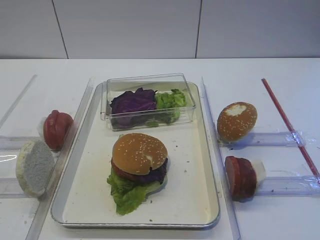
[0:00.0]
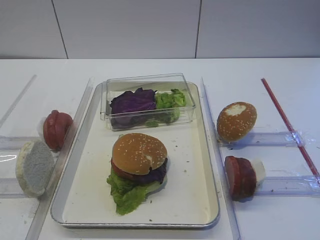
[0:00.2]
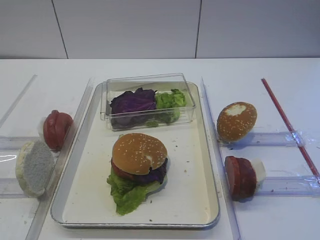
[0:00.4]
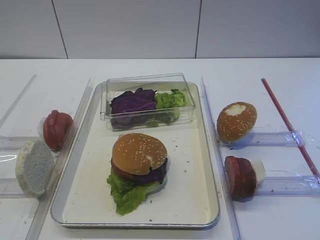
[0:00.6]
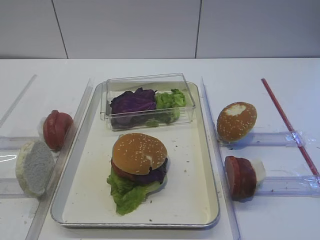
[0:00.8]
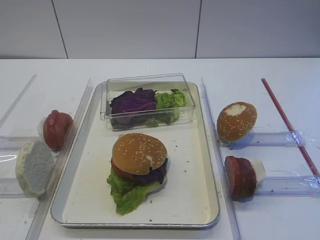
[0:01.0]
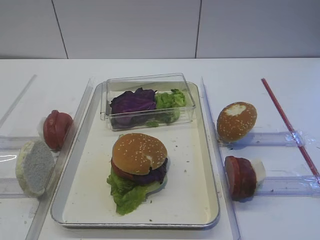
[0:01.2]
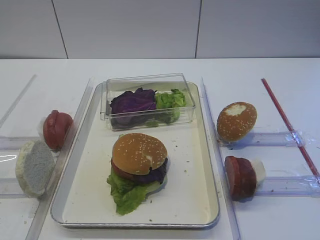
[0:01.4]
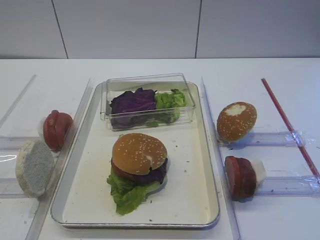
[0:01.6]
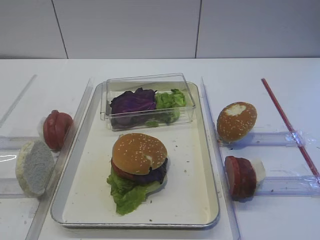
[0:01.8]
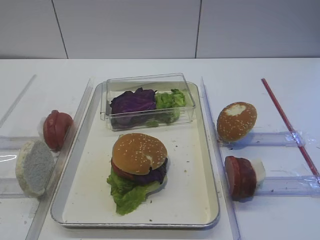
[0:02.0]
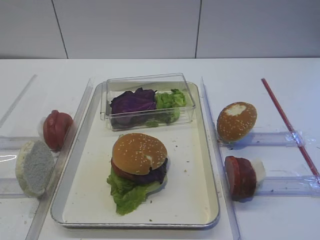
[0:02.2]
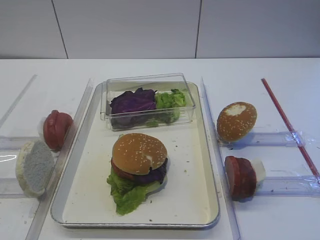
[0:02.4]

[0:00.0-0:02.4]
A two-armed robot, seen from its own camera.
0:00.0 to 0:02.4: Both grippers stay put.

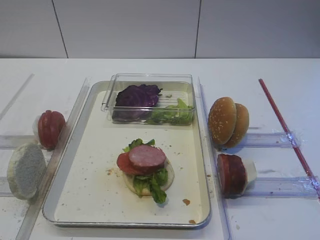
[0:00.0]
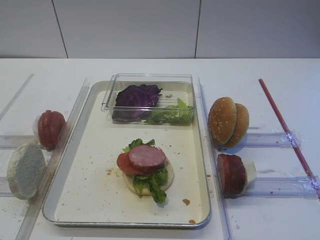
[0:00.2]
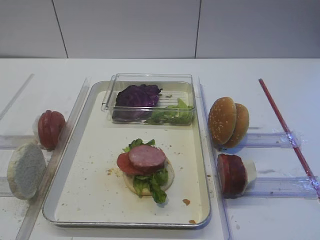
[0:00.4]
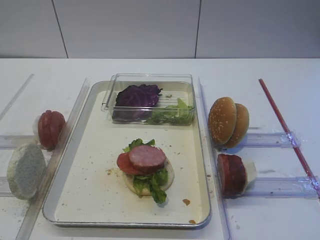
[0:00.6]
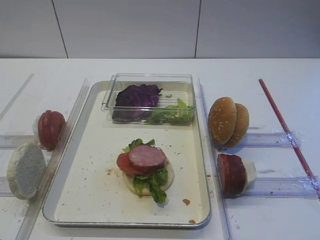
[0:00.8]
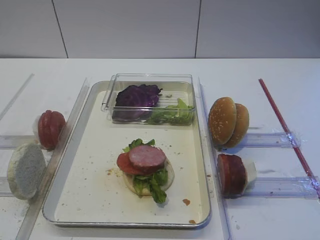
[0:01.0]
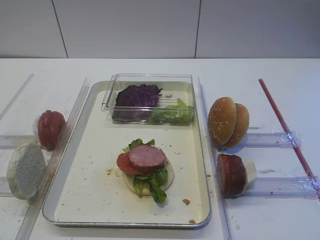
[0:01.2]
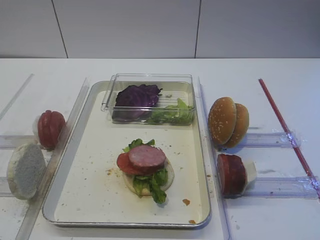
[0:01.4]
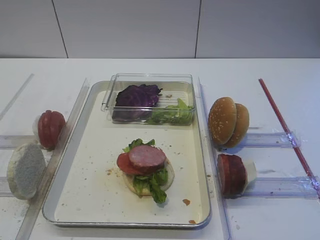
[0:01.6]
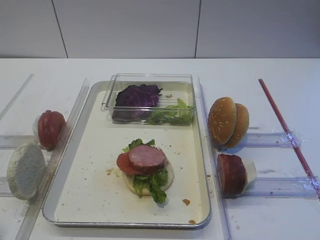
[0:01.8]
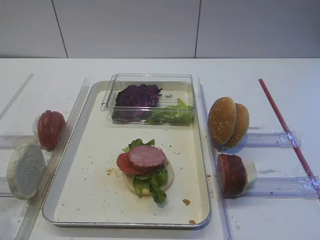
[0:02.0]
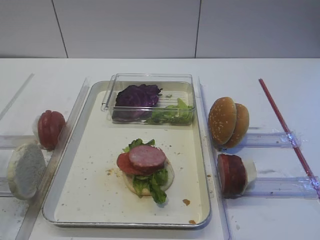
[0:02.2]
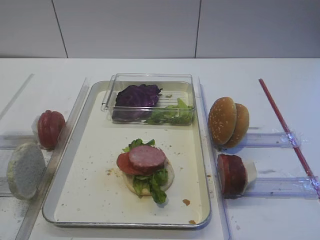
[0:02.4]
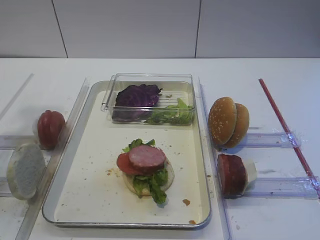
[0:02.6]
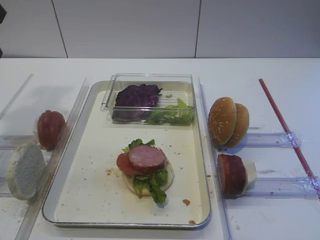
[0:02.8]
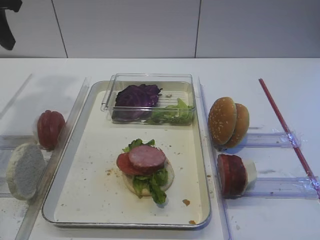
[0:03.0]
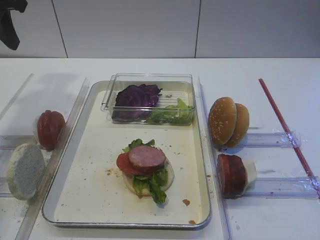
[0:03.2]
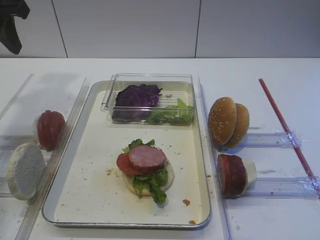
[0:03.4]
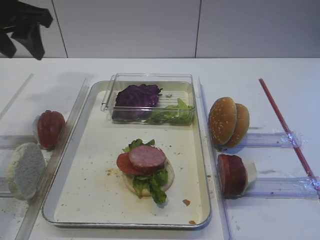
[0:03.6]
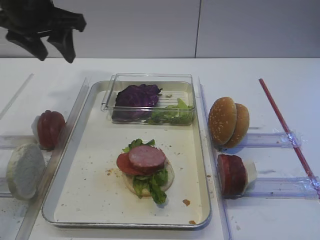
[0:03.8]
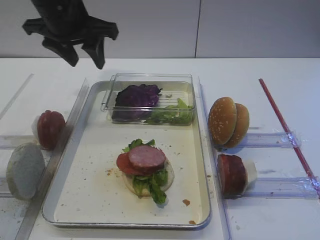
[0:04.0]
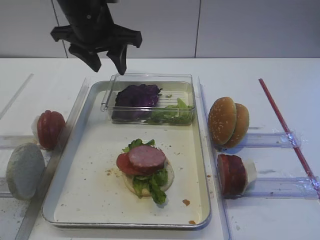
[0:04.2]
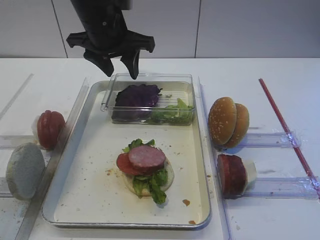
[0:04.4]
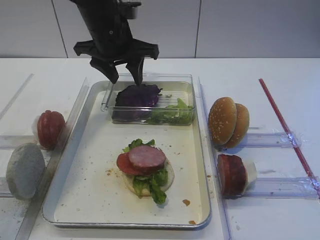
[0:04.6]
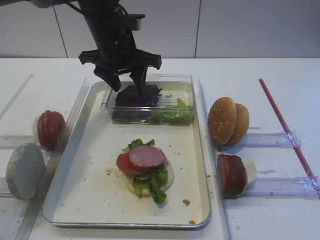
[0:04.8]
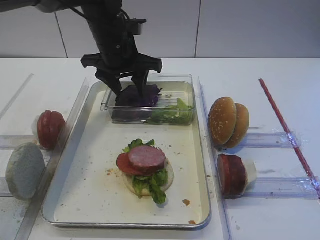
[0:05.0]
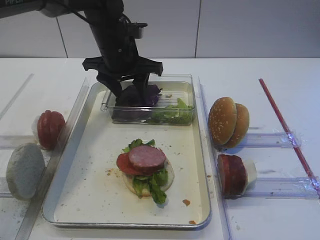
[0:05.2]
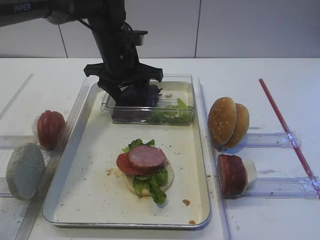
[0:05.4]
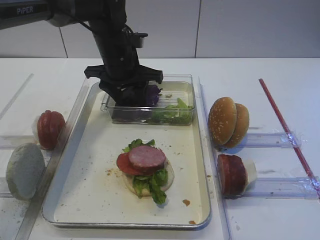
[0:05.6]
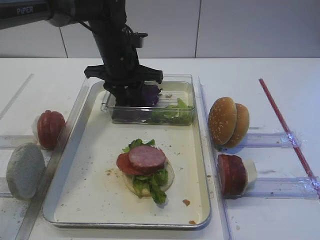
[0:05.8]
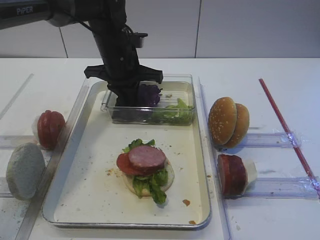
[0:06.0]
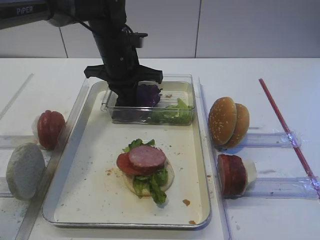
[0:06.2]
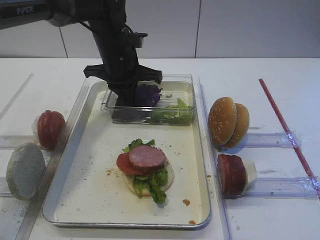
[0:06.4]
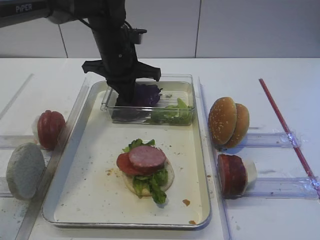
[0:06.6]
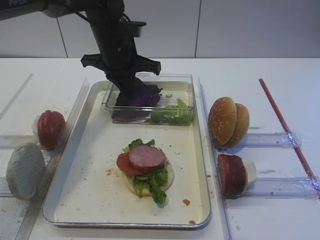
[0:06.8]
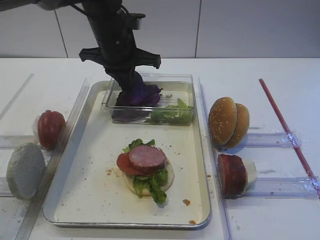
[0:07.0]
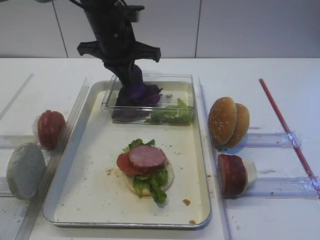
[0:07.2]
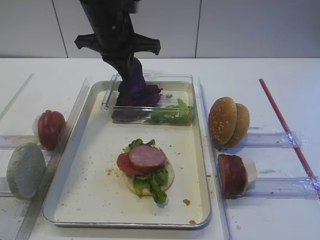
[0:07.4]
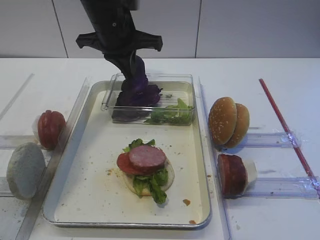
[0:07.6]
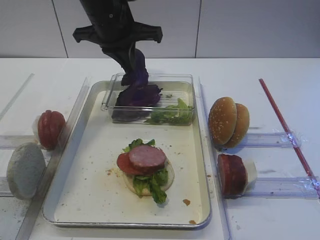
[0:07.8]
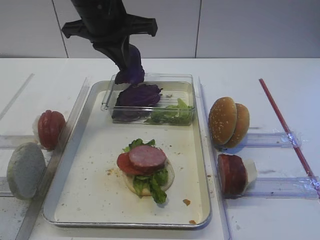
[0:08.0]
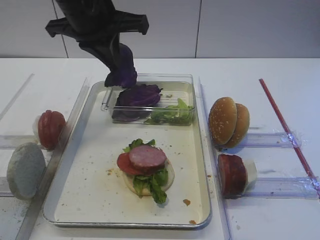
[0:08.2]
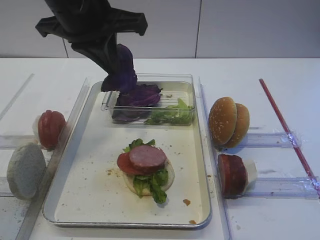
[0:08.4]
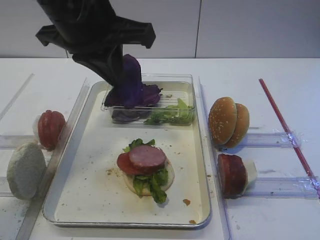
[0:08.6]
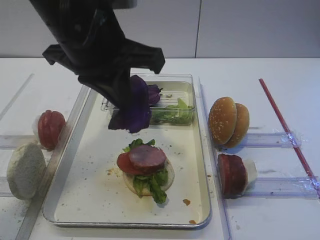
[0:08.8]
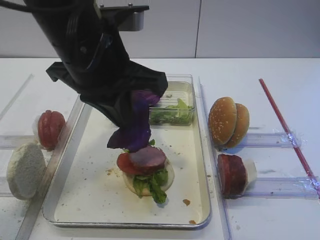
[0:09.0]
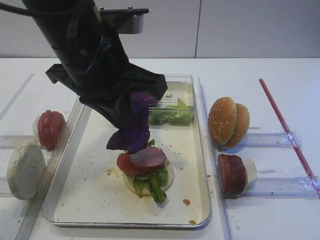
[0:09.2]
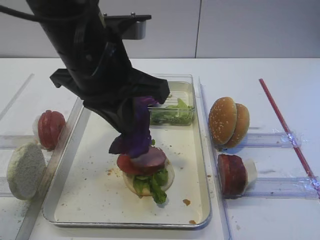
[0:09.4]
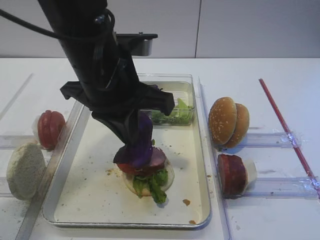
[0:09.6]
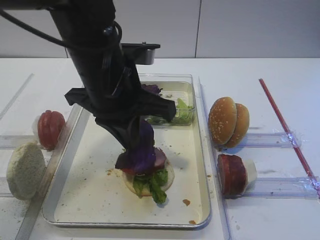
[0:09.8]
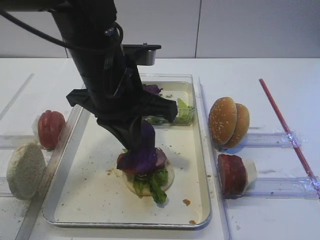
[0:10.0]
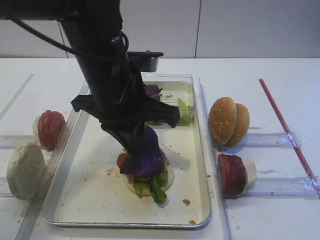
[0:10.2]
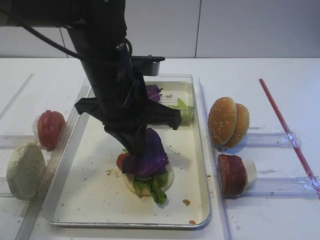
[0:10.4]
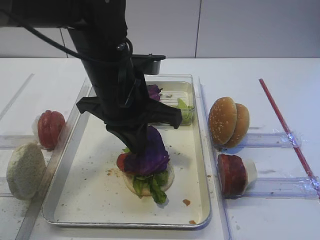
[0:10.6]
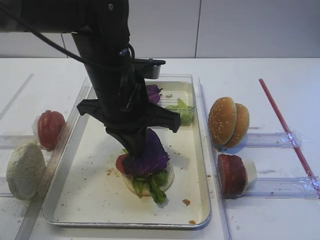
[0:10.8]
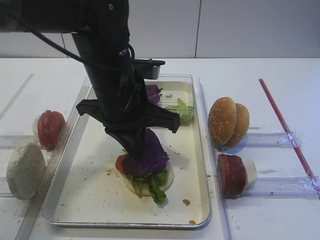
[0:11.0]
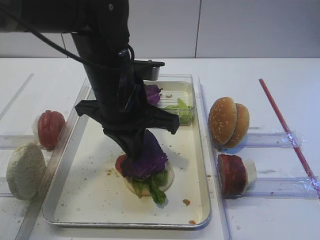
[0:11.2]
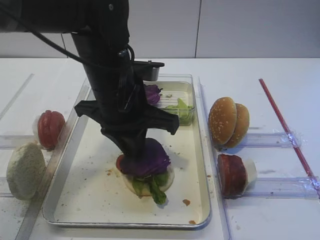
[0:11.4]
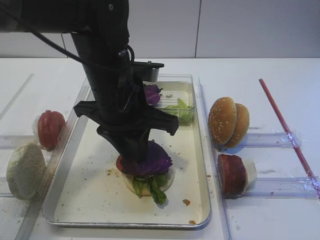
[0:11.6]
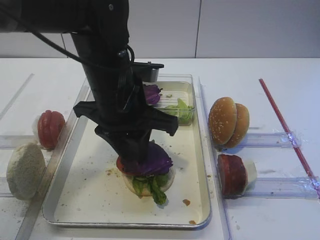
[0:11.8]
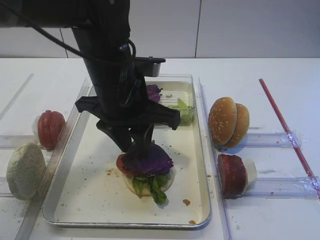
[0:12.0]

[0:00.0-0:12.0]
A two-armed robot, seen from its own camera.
Step, 0:00.0 to 0:08.2: Pick up the purple cabbage with the left gripper.
0:01.6 to 0:03.0: The left gripper goes roughly 30 cm forward.
0:03.0 to 0:04.4: The left gripper heads to the right and forward, covering approximately 20 cm.
0:04.4 to 0:06.0: The left gripper is displaced downward by some 5 cm, and closes its fingers.
0:06.0 to 0:07.6: The left gripper shifts approximately 5 cm upward.
0:07.6 to 0:09.0: The left gripper is displaced backward by some 15 cm.
0:09.0 to 0:10.4: The left gripper shifts approximately 5 cm downward.
0:10.4 to 0:12.0: The left gripper opens.

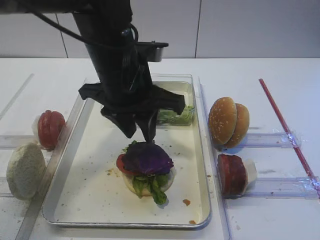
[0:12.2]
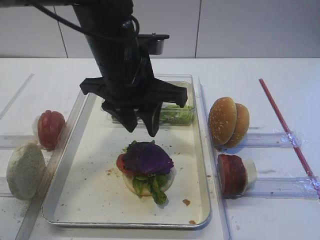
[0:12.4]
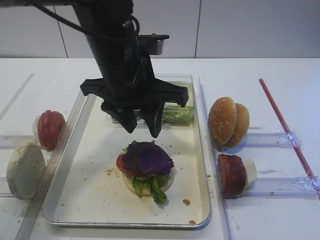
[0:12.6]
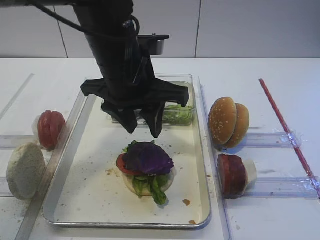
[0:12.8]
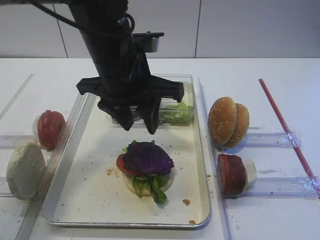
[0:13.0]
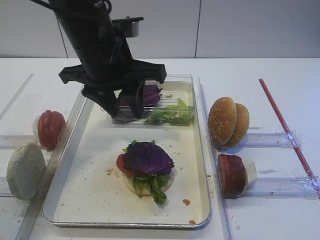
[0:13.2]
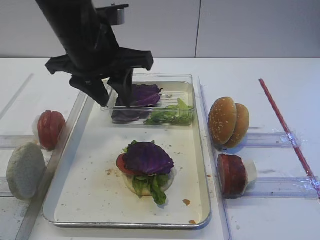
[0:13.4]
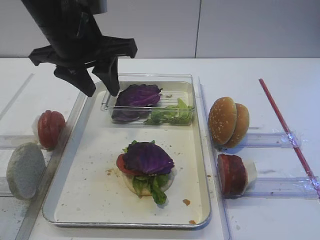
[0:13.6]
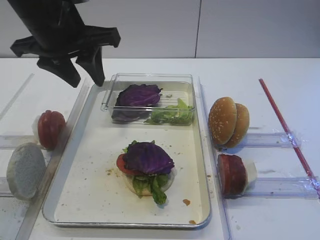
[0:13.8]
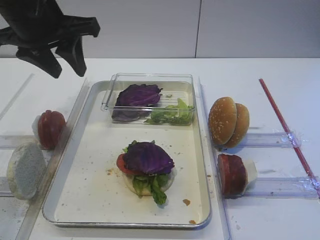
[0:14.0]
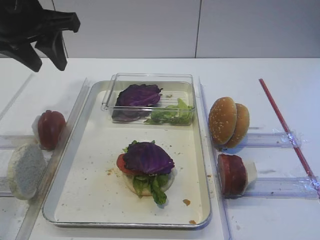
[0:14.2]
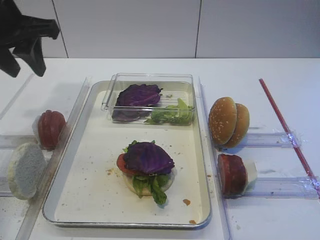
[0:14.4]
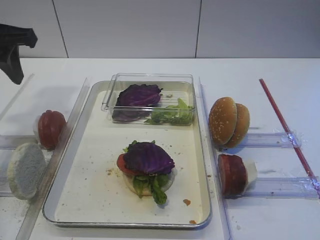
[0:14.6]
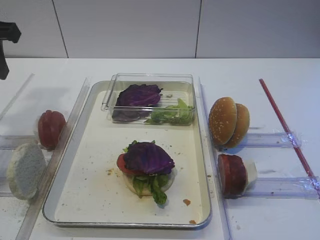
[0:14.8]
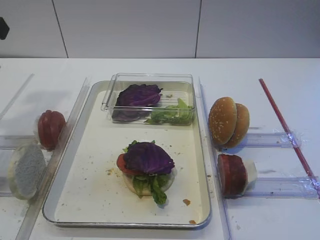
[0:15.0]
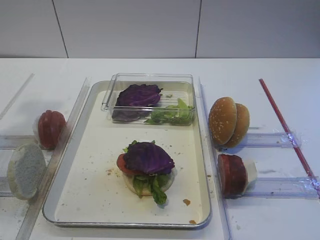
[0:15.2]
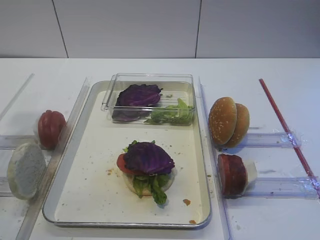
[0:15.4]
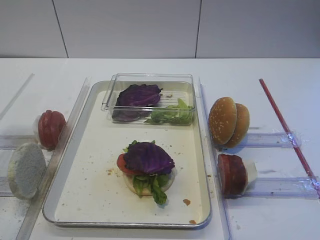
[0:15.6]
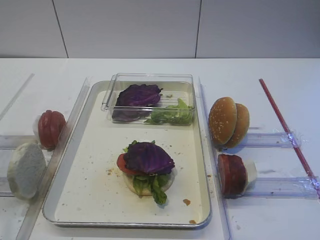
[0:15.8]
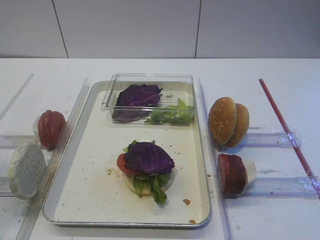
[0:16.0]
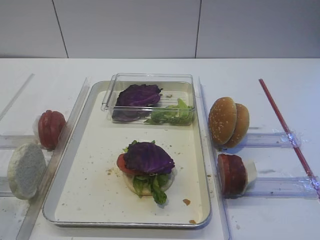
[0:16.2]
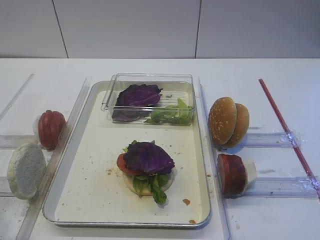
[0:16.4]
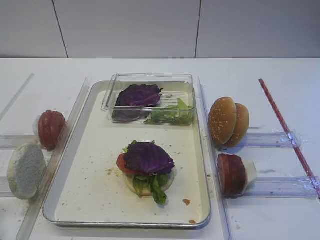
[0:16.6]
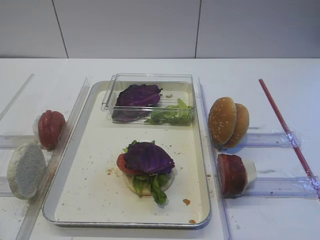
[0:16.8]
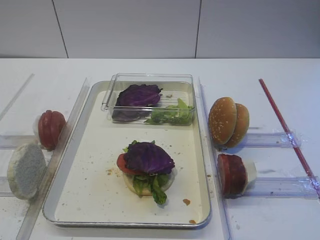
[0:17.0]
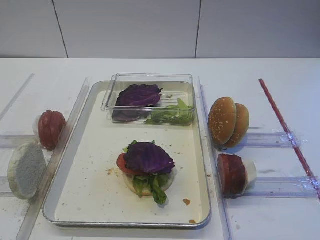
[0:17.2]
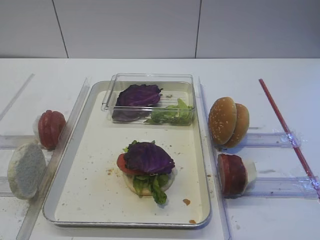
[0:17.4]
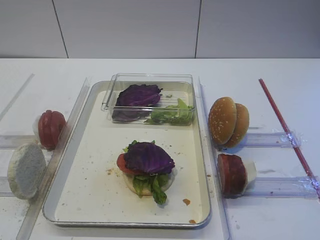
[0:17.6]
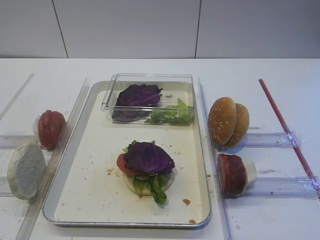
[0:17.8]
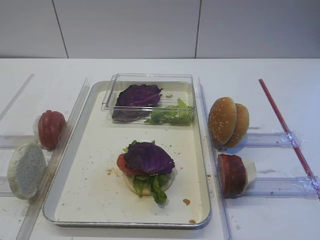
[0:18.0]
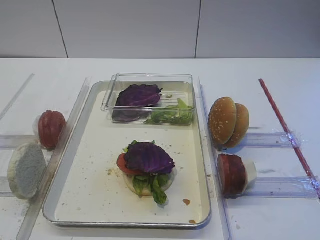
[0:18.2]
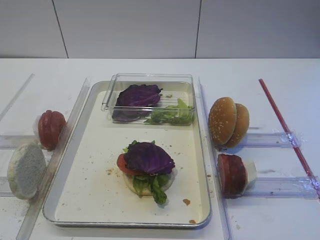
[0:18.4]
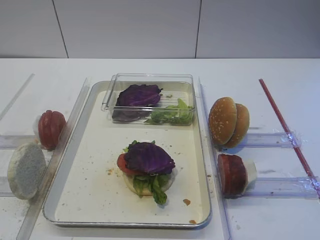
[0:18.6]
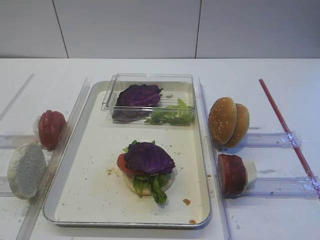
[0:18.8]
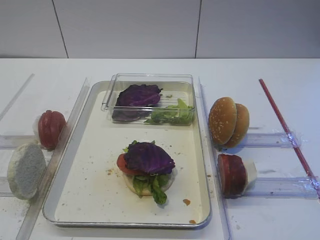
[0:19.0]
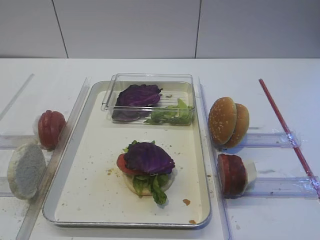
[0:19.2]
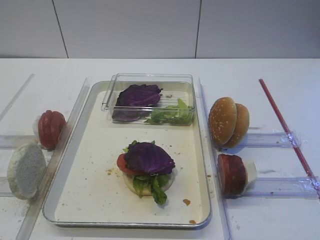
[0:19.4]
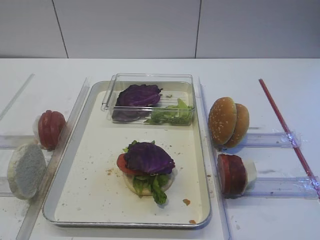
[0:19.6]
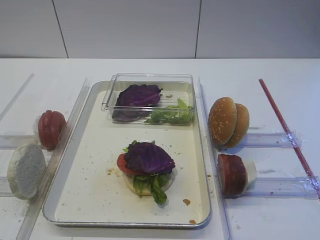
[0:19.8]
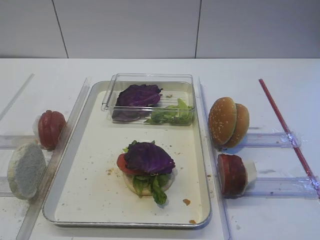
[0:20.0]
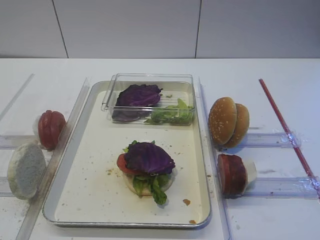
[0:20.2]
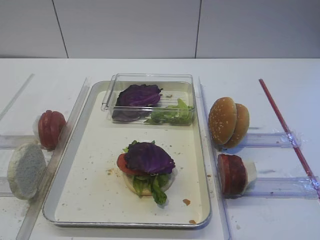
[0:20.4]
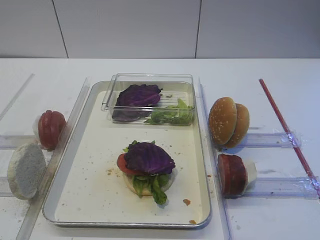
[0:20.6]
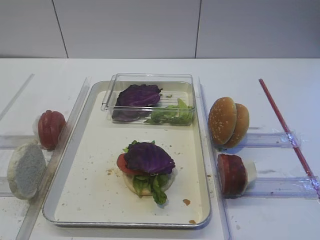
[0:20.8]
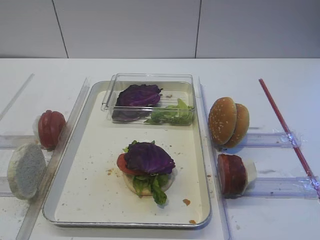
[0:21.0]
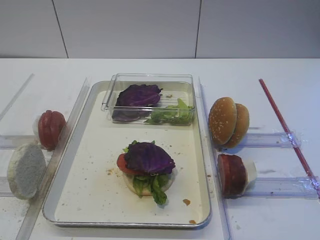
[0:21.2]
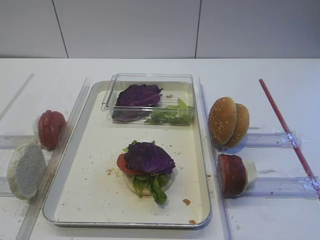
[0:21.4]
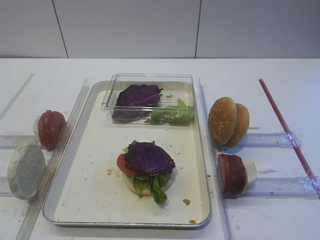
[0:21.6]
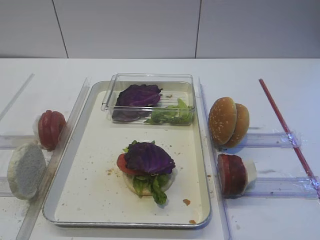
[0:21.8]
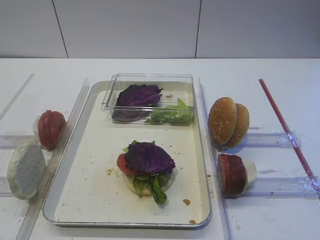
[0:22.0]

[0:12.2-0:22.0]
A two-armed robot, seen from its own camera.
0:12.2 to 0:13.6: The left gripper heads to the left, covering roughly 5 cm.
0:13.6 to 0:15.0: The left gripper is displaced to the left by approximately 15 cm.
0:15.0 to 0:16.4: The left gripper moves backward, approximately 20 cm.
0:17.8 to 0:22.0: Both grippers stay about where they are.
